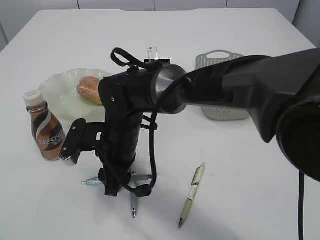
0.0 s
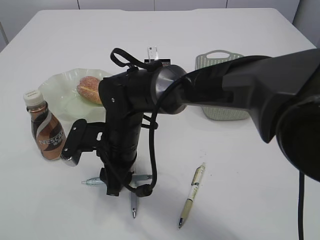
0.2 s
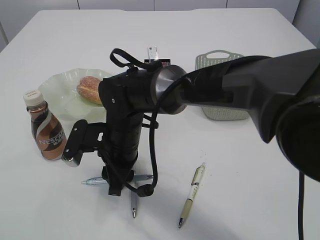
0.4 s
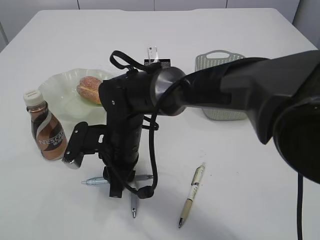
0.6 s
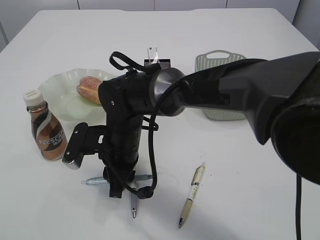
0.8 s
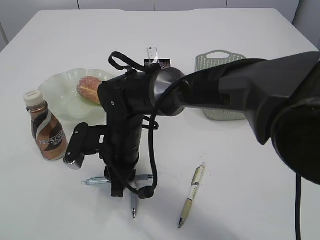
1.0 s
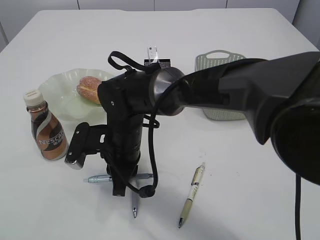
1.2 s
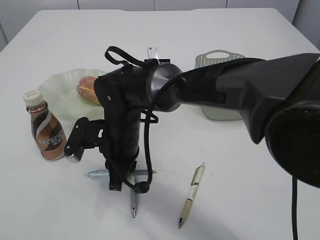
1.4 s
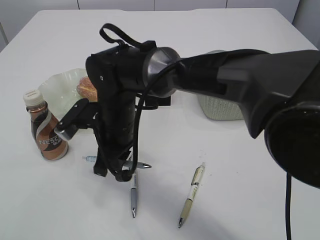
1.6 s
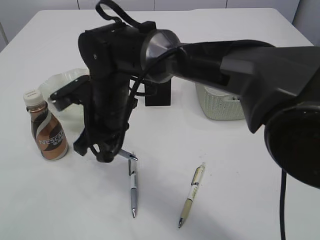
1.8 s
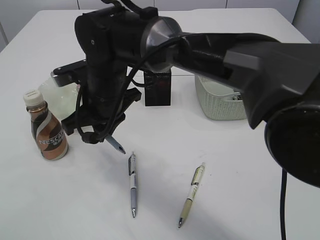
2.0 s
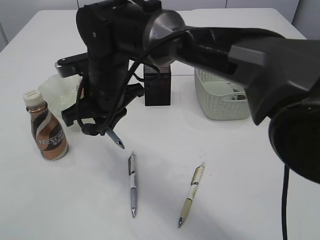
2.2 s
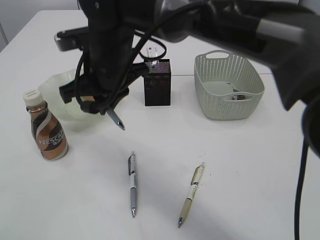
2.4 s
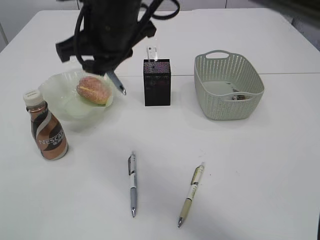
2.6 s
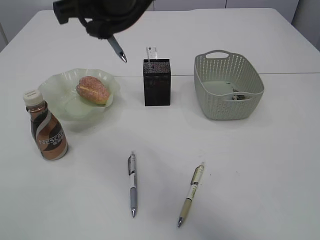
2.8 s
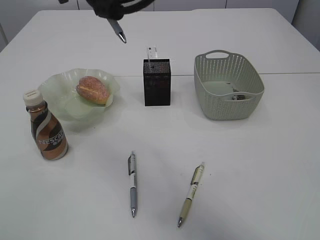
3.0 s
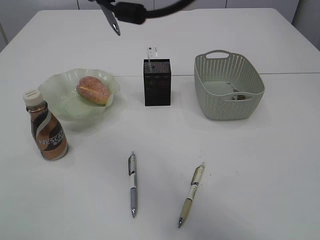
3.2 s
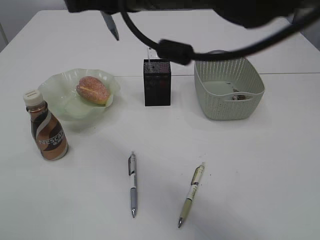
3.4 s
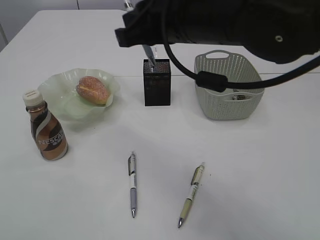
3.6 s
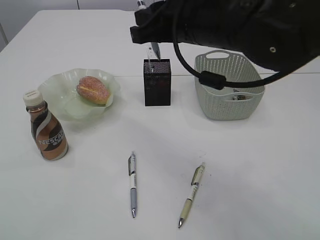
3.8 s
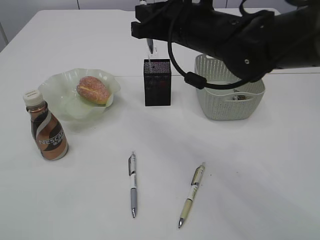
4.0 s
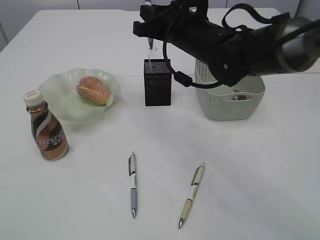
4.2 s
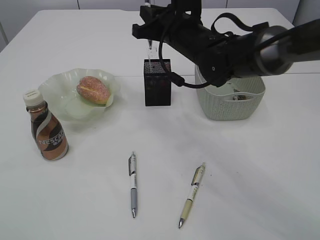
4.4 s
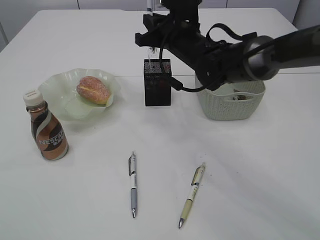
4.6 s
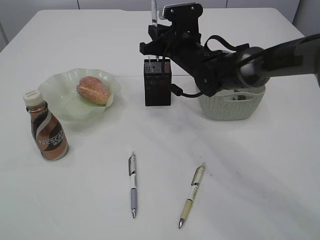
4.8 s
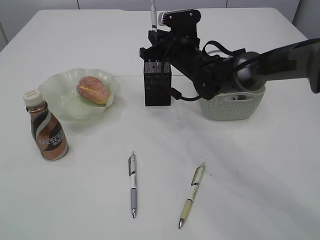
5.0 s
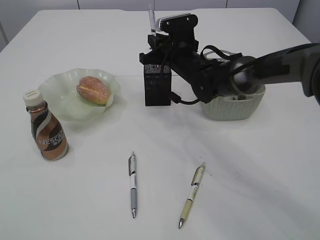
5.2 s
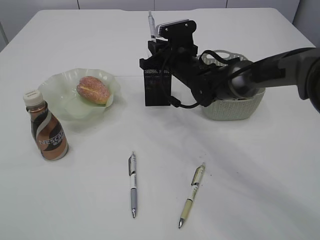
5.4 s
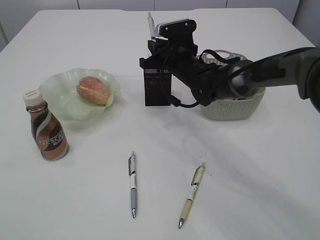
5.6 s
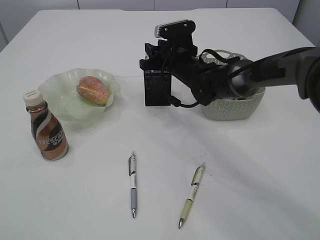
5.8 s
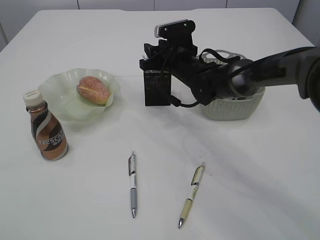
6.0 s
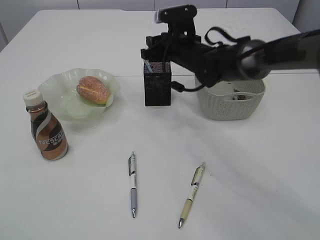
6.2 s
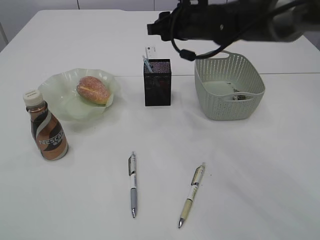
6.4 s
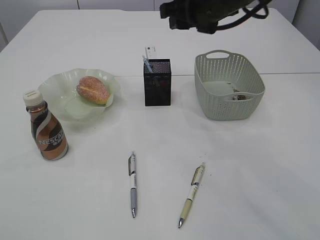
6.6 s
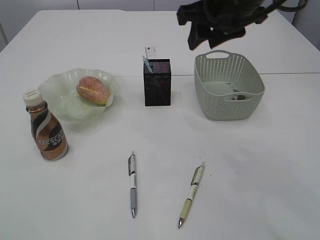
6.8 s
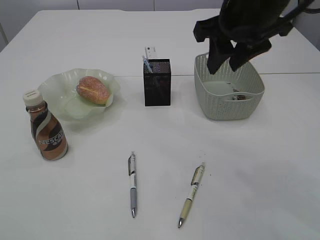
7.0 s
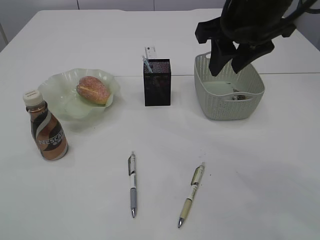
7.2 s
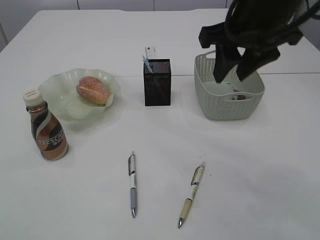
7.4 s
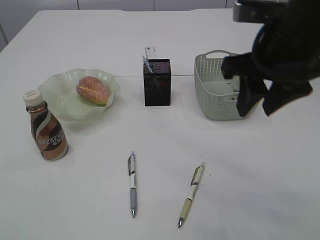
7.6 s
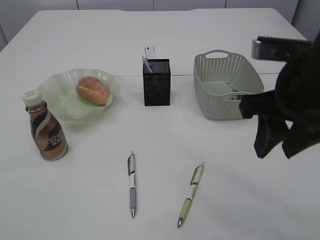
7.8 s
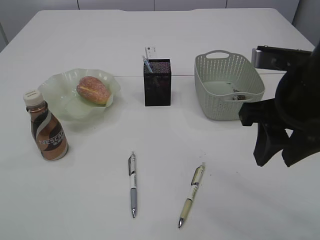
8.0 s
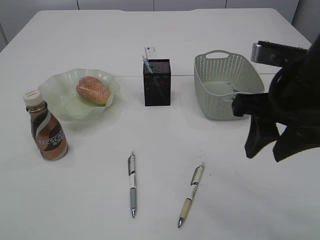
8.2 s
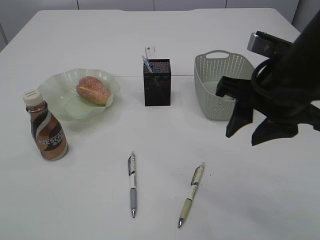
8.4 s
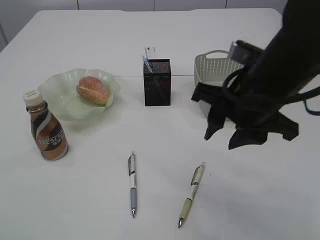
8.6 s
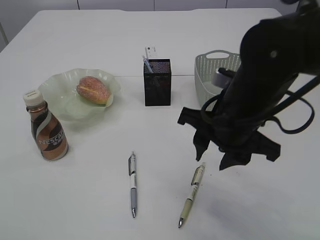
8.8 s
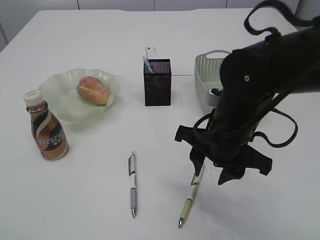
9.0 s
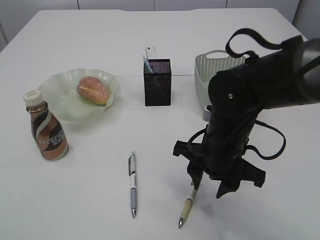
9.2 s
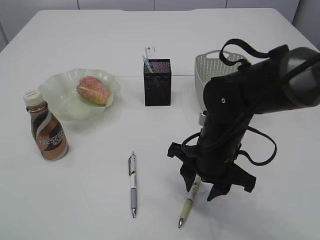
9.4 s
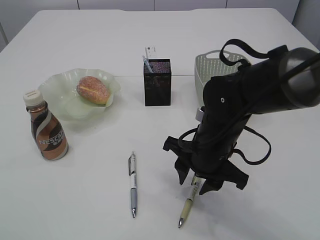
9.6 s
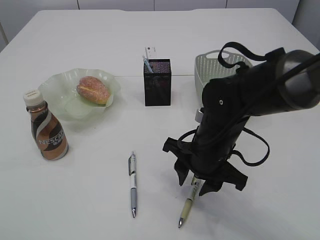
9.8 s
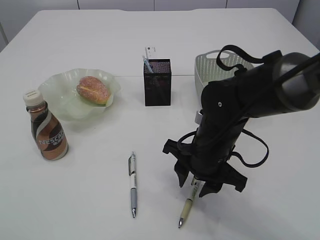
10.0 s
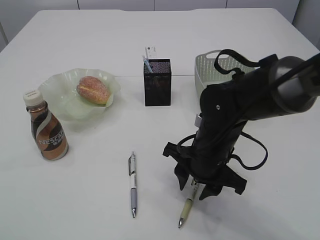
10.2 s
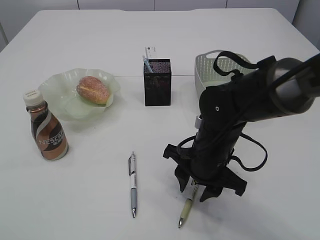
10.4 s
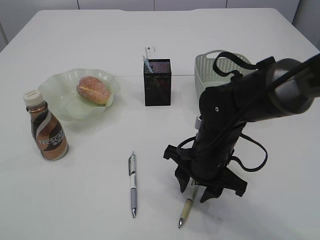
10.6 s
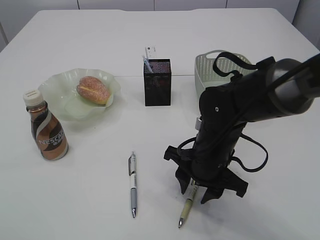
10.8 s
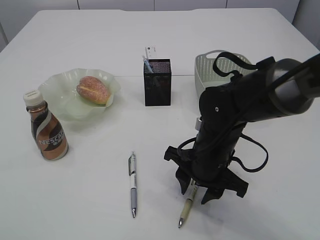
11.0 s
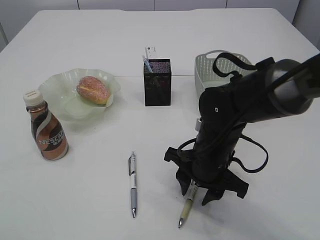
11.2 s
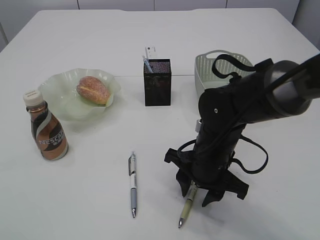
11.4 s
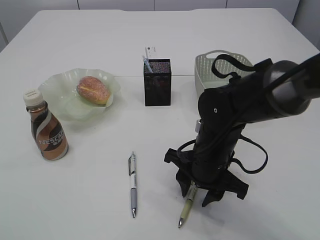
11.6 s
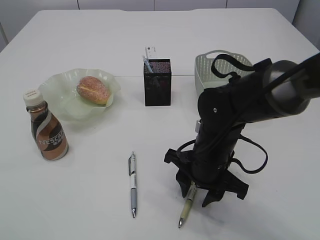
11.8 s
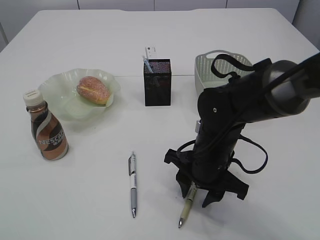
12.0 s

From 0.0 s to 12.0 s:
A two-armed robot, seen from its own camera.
Step, from 0.0 s to 2.0 s: Pick up the pen with right arm.
Step, from 2.2 s to 6.4 s: Place the pen into the pen holder.
From 0.0 s to 1.6 s: The right gripper closes up.
From 1.6 s to 3.0 s: The right gripper goes about 25 cm upward.
From 3.0 s to 4.4 s: The right gripper moves downward, forward and to the right, approximately 20 cm.
From 4.4 s to 6.0 s: The right gripper travels downward and forward by approximately 10 cm, and opens its fingers.
From 6.0 s to 7.6 s: The right gripper shifts approximately 25 cm backward and upward.
From 7.6 s to 9.0 s: The right gripper moves downward and to the left, about 15 cm.
From 9.0 s to 10.4 s: The right gripper travels downward by some 5 cm.
From 10.4 s to 12.0 s: Both grippers stay about where they are.

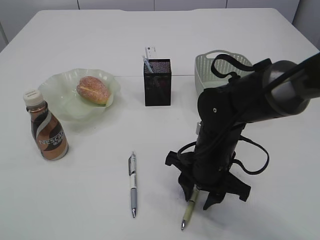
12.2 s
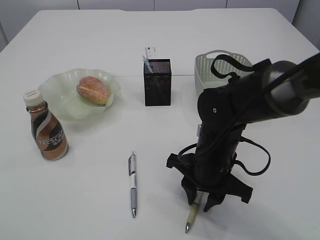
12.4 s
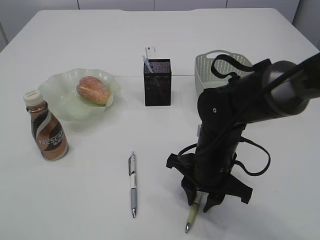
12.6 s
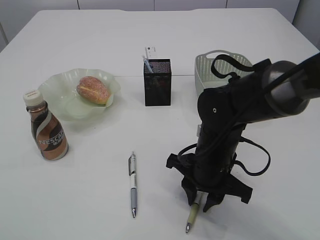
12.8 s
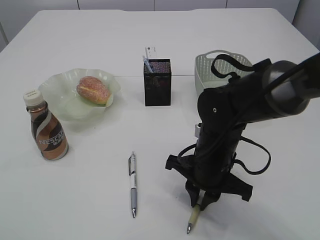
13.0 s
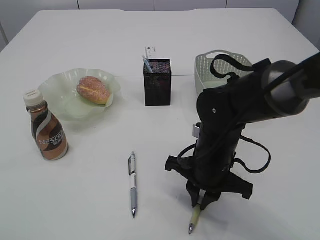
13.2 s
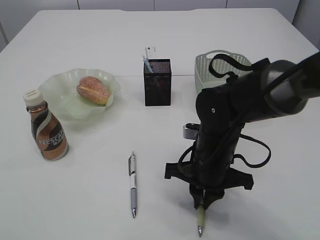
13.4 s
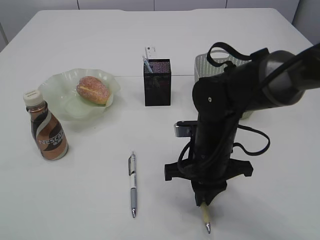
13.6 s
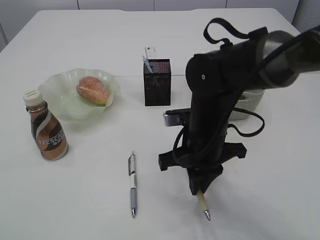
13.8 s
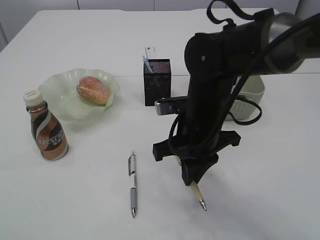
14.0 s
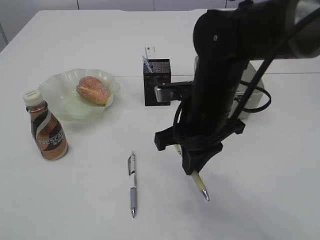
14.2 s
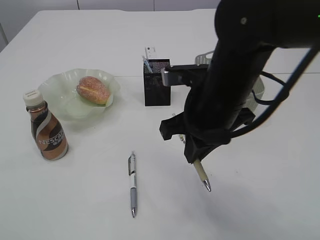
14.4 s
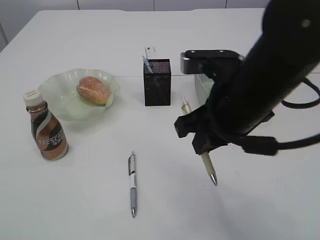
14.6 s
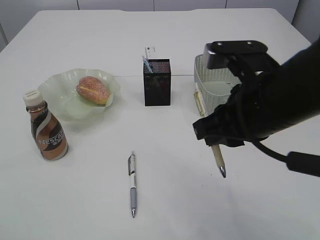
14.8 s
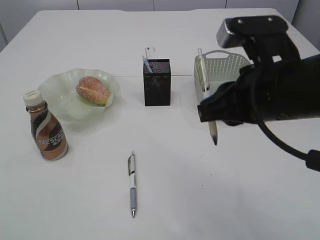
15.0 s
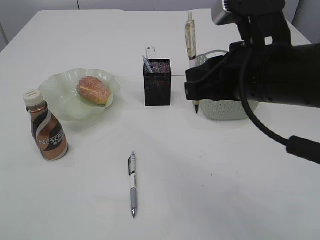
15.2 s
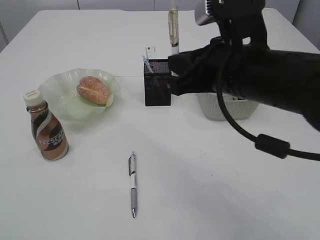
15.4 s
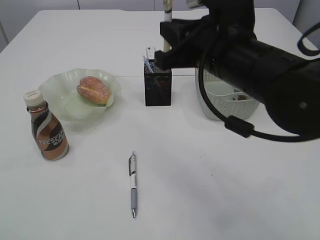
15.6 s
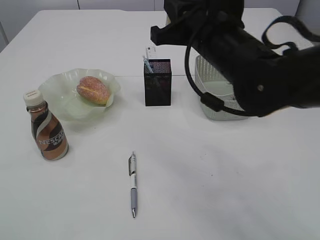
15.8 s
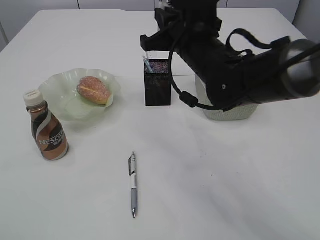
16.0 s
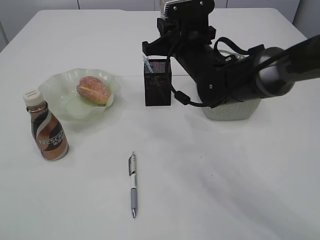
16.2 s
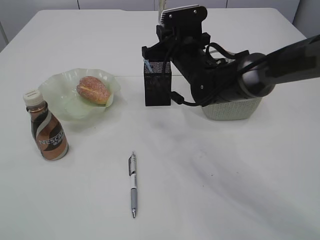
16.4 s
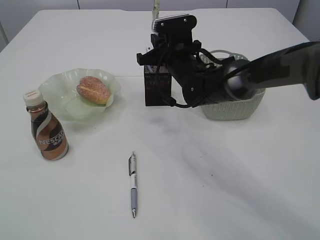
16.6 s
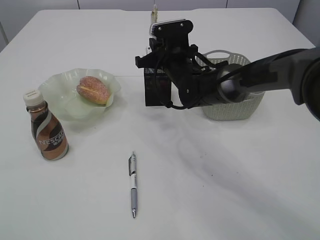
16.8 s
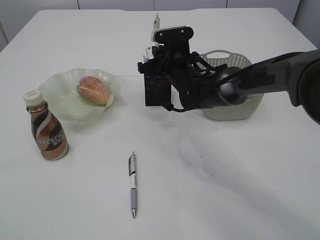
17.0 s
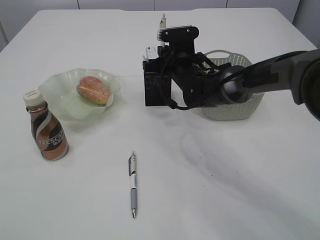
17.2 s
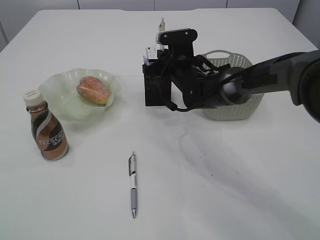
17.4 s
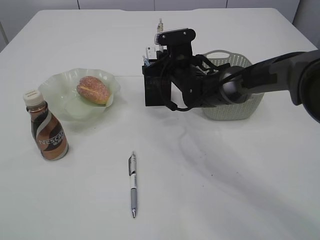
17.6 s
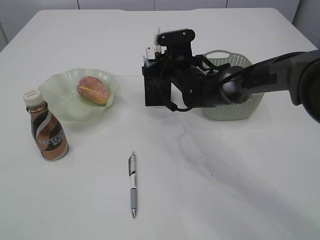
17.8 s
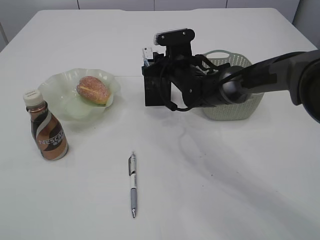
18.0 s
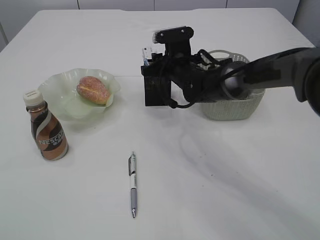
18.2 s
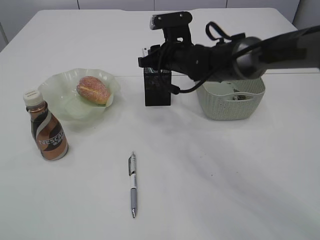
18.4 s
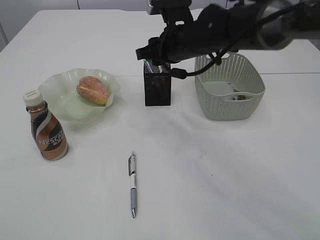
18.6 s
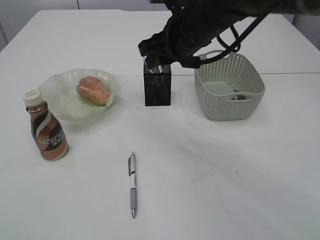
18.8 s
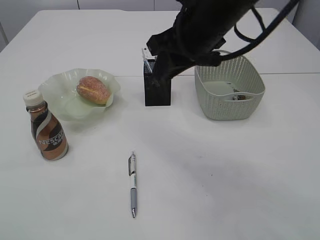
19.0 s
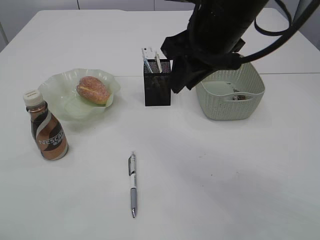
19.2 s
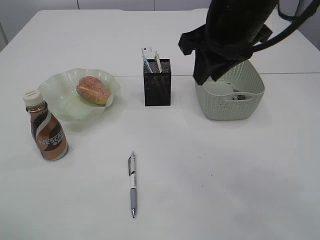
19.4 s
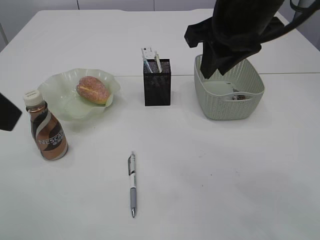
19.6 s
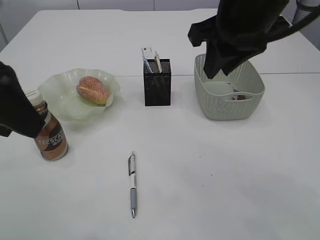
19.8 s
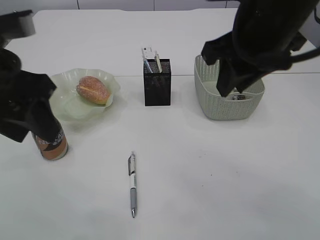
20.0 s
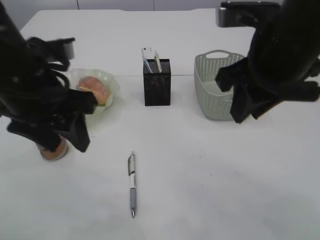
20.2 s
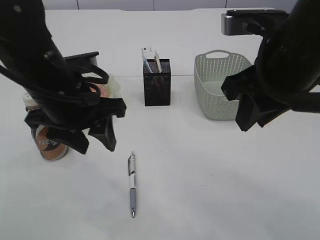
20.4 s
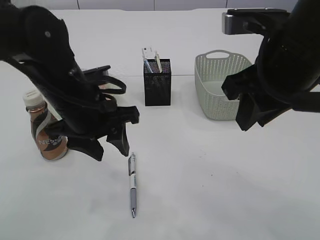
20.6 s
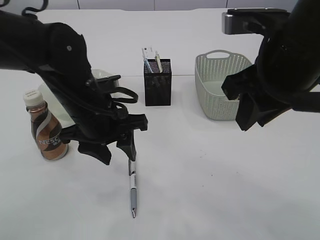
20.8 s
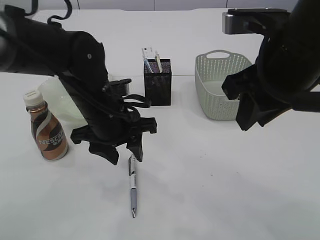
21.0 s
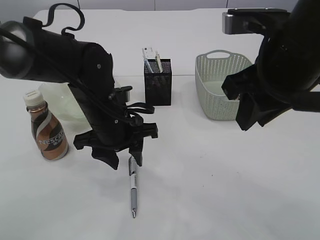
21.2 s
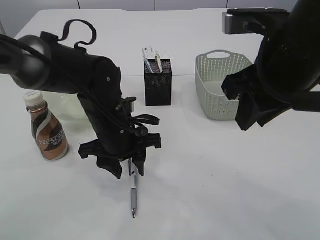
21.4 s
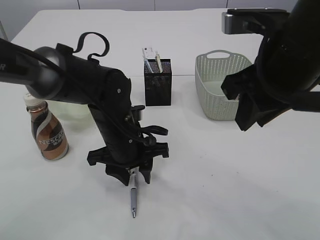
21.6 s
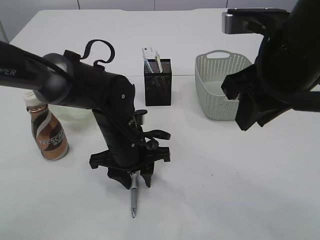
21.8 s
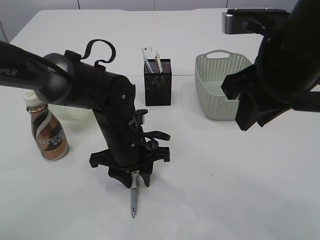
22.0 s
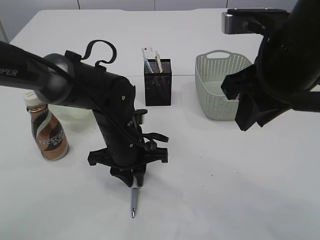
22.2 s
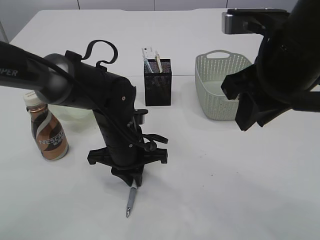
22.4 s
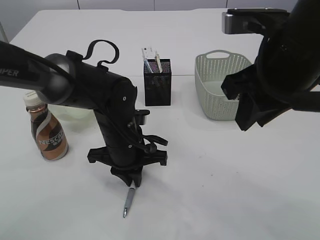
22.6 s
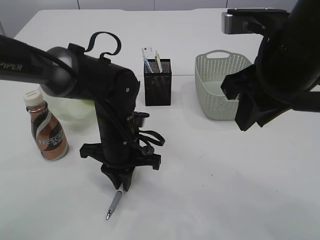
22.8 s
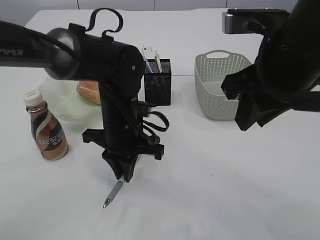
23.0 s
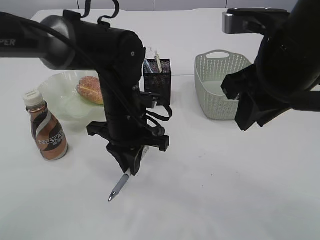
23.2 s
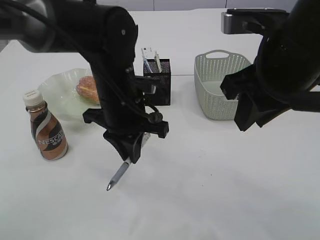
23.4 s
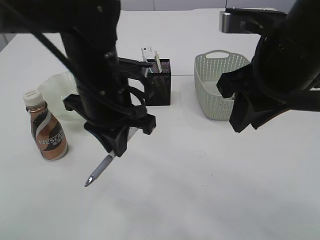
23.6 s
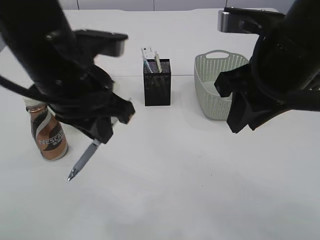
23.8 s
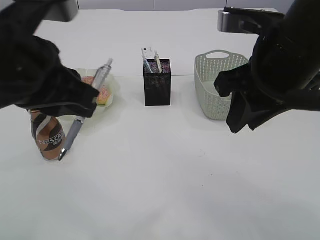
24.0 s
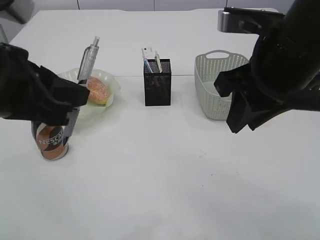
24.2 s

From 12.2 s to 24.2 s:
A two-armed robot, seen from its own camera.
Step, from 14.2 s to 18.8 s: Place the pen into the pen holder.
Step, from 19.0 s to 23.0 s: Pick up the pen with left arm.
From 12.2 s to 13.8 s: The right gripper closes its fingers.
From 13.8 s to 15.2 s: The right gripper moves upward and backward, about 15 cm.
From 15.2 s to 16.6 s: The right gripper goes some 25 cm forward and downward.
From 16.6 s to 18.2 s: The right gripper opens.
From 18.2 s to 19.8 s: The right gripper heads upward and backward, covering approximately 25 cm. Meanwhile the left gripper goes approximately 15 cm to the right and forward.
From 19.8 s to 21.2 s: The right gripper heads backward, covering approximately 5 cm. The left gripper heads downward, forward and to the right, covering about 25 cm.
From 21.2 s to 22.6 s: The left gripper moves roughly 5 cm, and closes its fingers.
From 22.6 s to 24.2 s: The left gripper travels upward, backward and to the left by some 25 cm.
